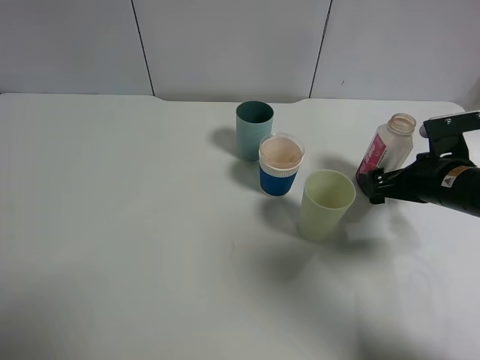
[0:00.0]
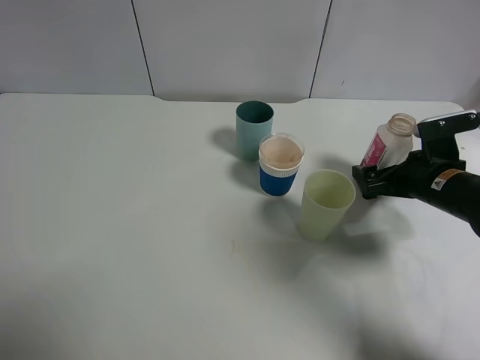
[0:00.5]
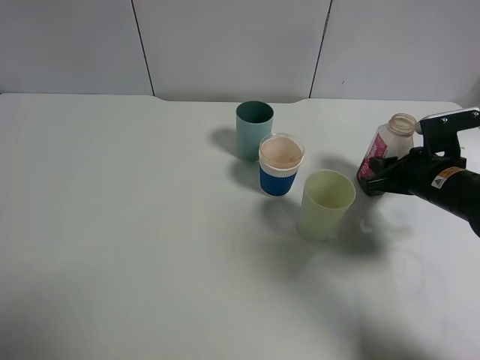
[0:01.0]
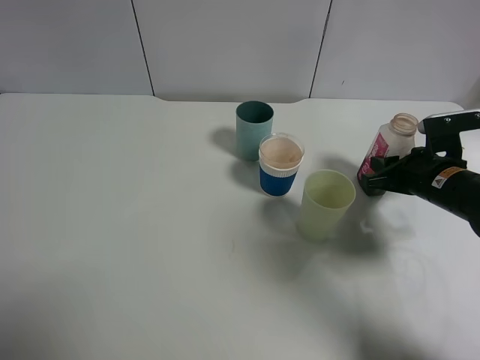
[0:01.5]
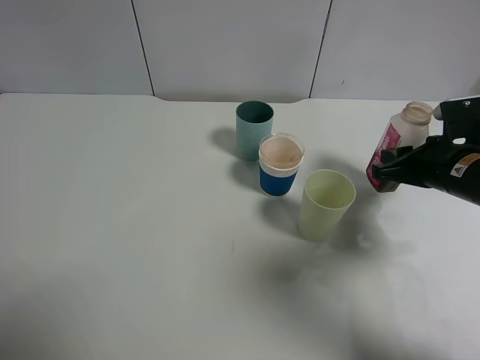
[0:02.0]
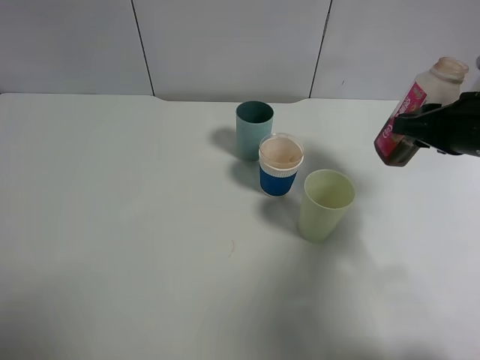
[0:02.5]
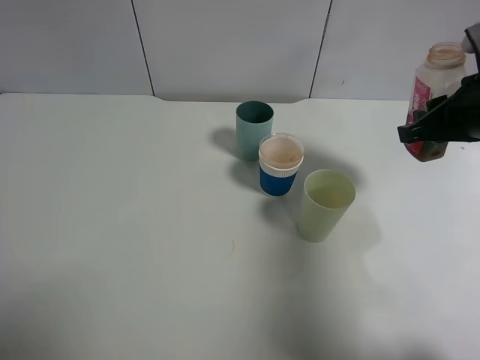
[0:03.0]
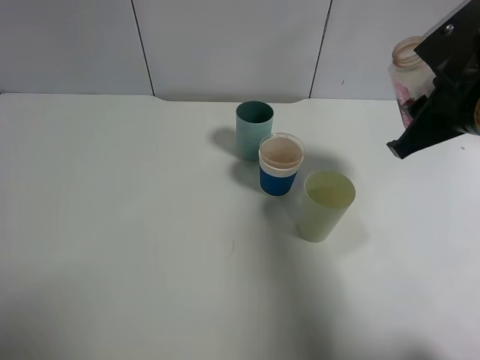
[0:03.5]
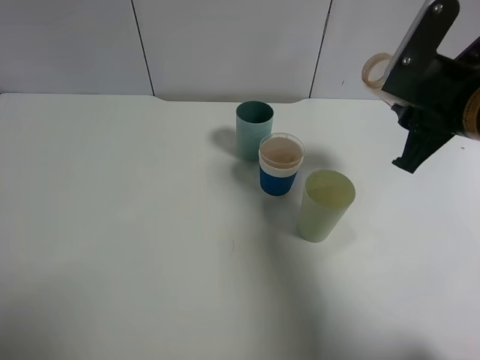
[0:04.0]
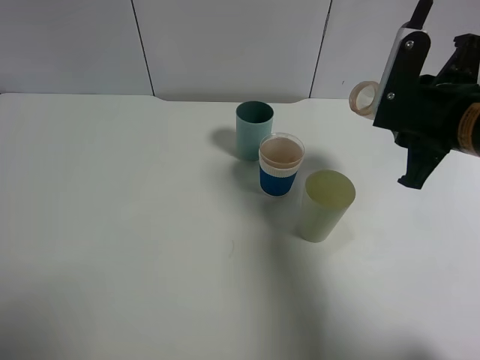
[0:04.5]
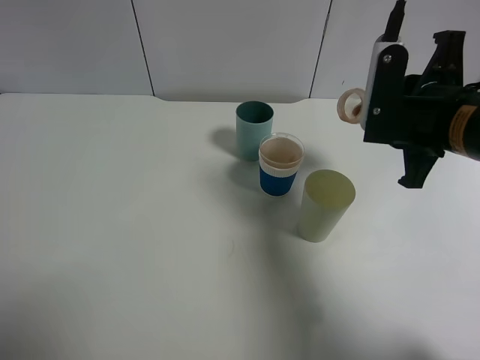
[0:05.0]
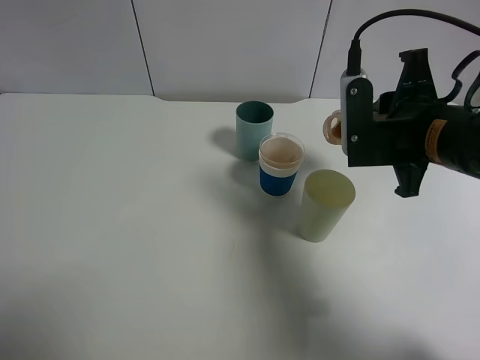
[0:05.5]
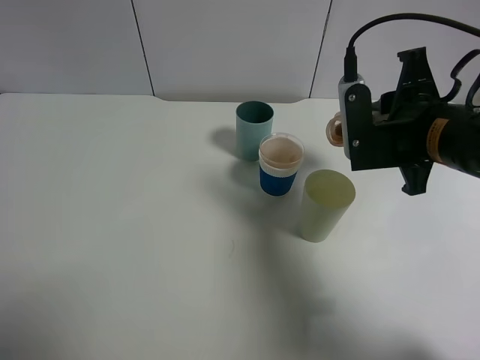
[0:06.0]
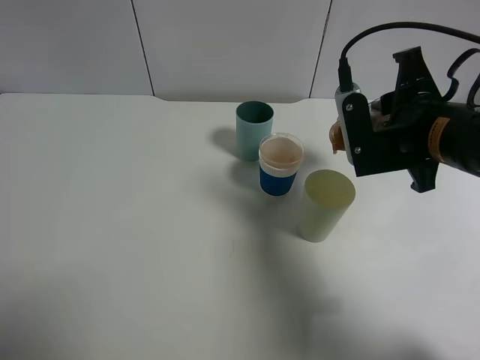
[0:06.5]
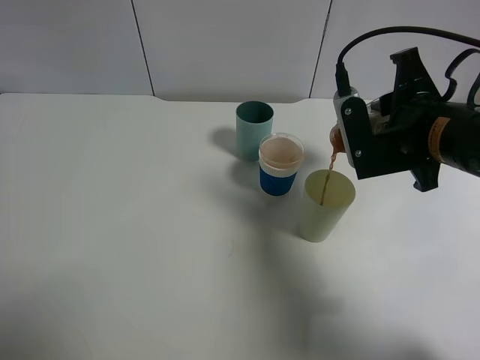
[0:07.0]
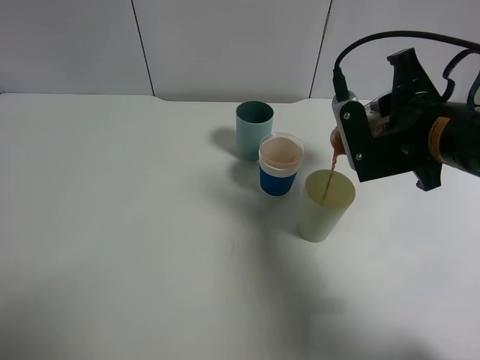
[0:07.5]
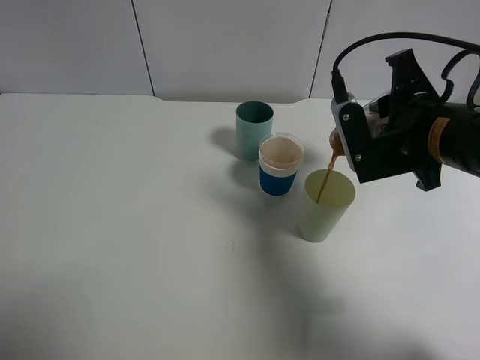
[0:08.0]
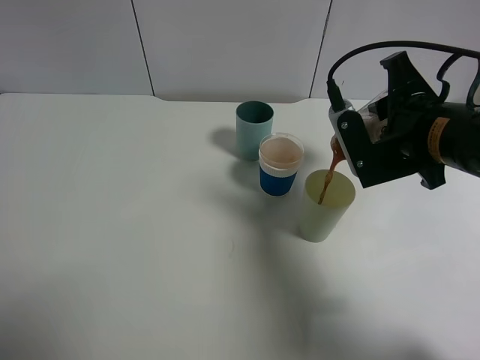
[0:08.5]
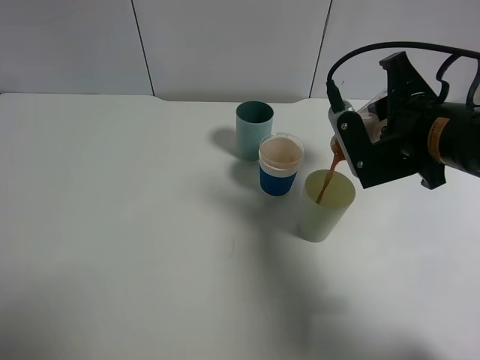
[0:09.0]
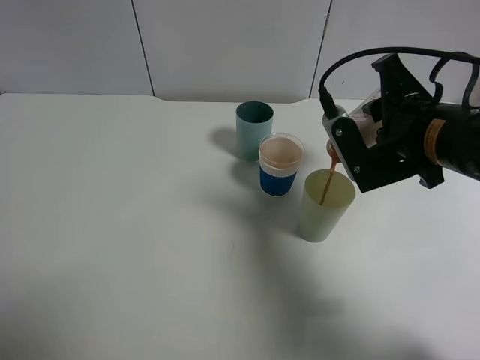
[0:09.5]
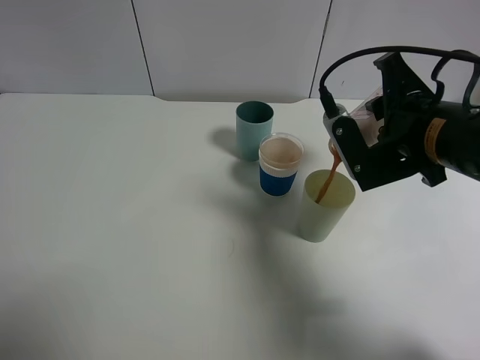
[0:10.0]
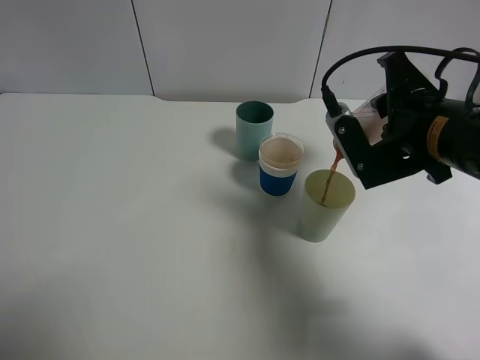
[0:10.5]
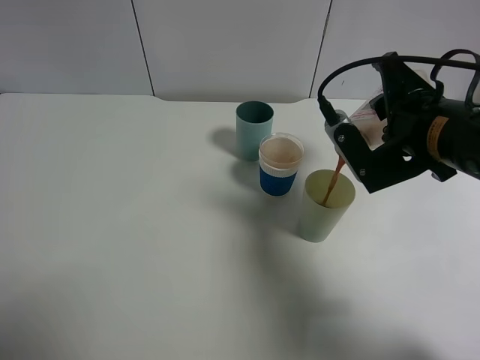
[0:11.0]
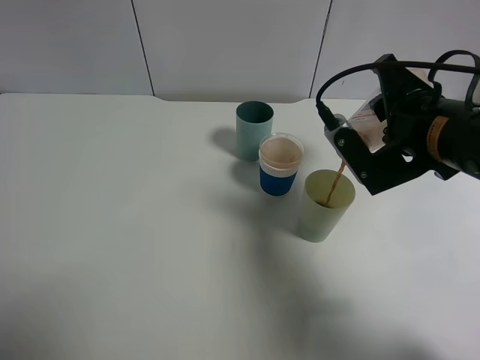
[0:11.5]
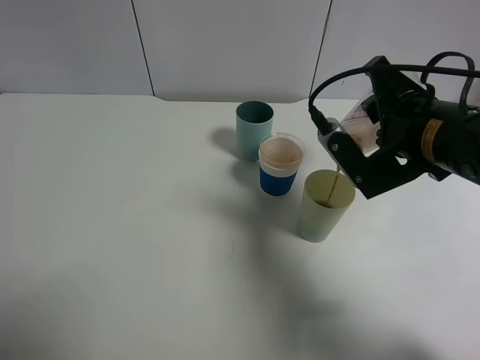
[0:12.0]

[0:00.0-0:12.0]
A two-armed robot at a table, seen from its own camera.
Task of the whole recording: use a gripper to hold the bottle of the drink and pour it into a random cup.
0:00.0 to 0:02.0: The right gripper closes its fingers.
0:02.0 to 0:04.0: The right gripper travels upward and to the left by roughly 10 cm.
0:06.0 to 0:10.0: The grippers move only a little.
0:10.0 to 0:12.0: The grippers stay close to where they were, moving slightly.

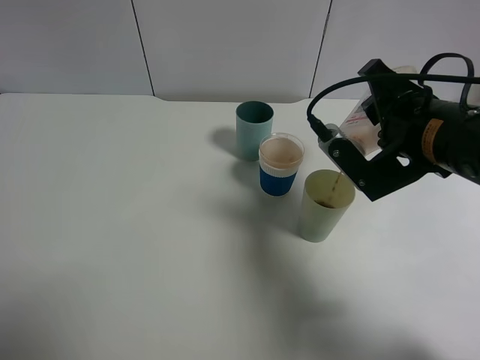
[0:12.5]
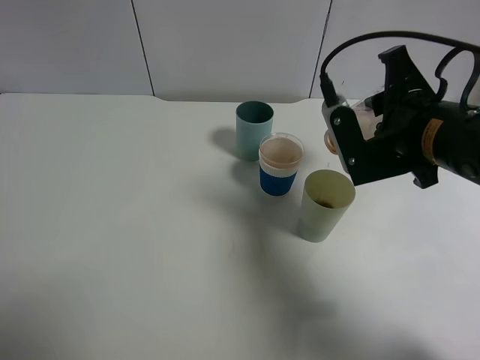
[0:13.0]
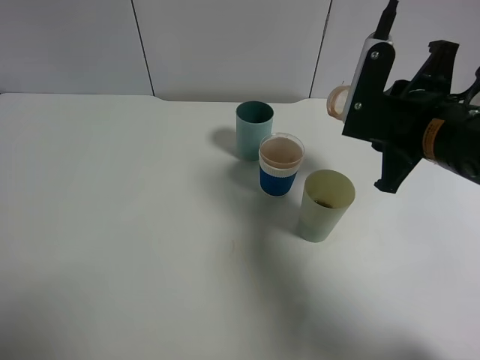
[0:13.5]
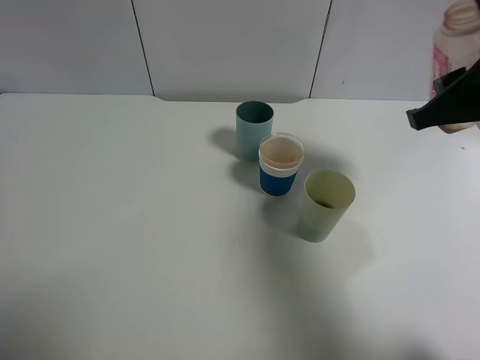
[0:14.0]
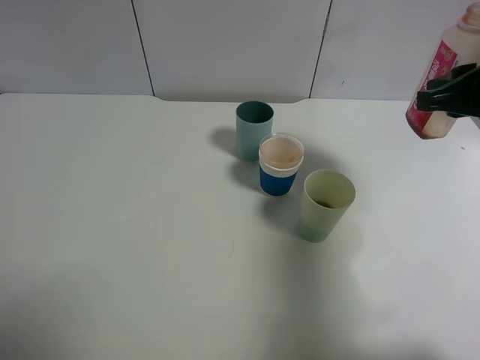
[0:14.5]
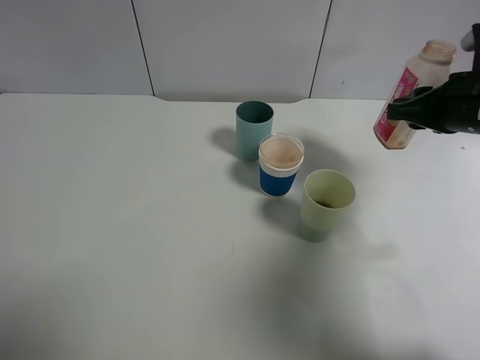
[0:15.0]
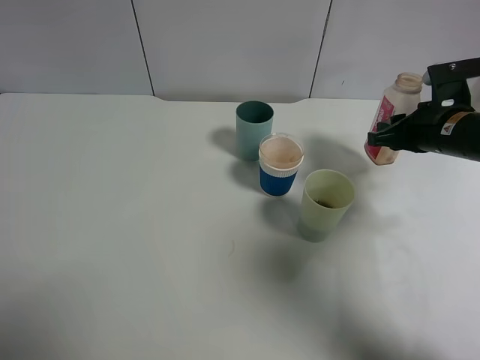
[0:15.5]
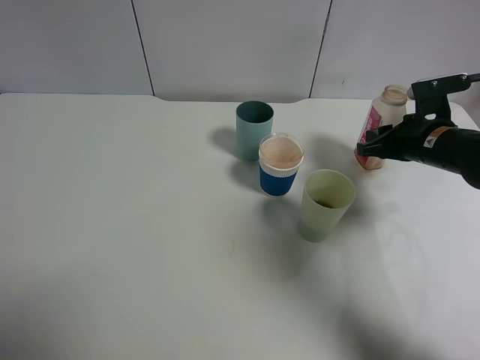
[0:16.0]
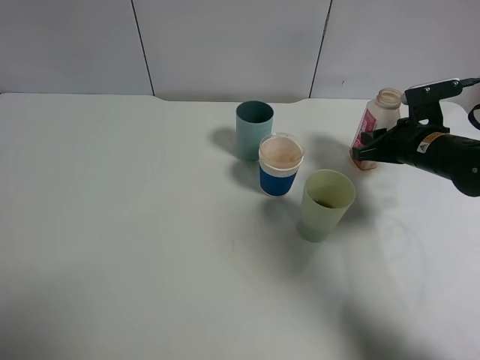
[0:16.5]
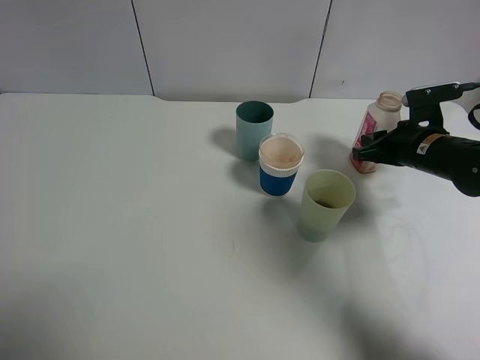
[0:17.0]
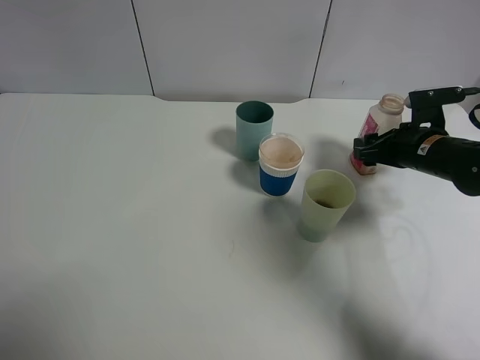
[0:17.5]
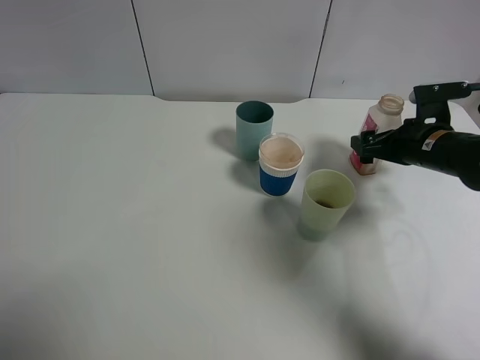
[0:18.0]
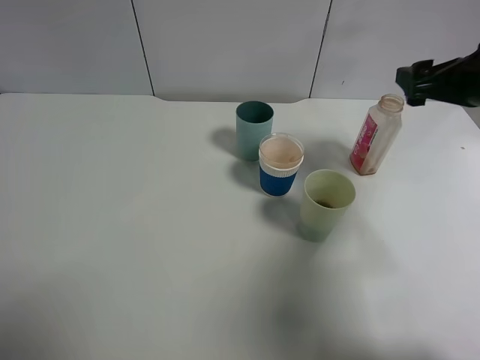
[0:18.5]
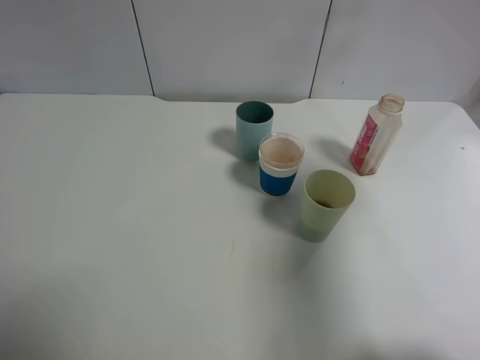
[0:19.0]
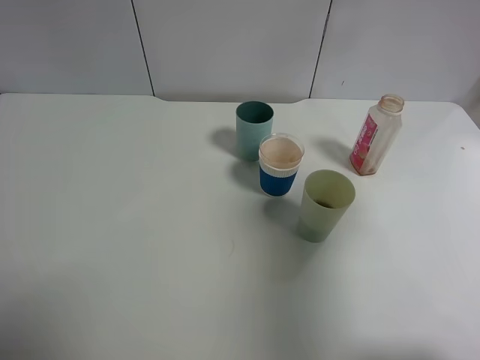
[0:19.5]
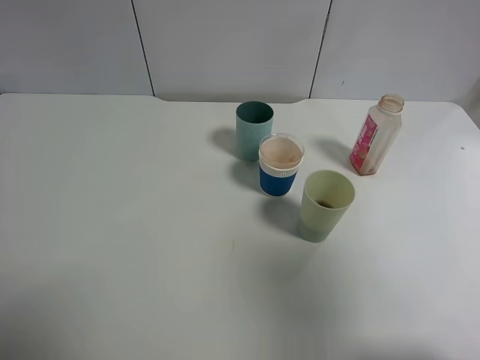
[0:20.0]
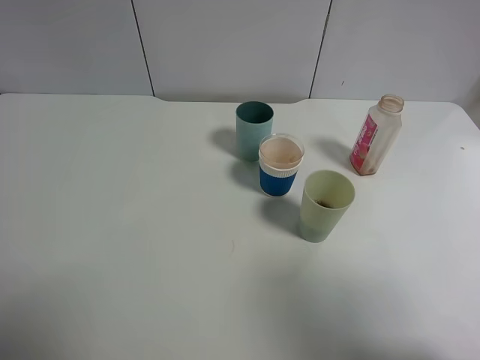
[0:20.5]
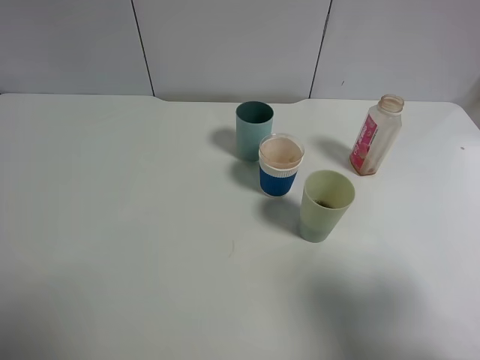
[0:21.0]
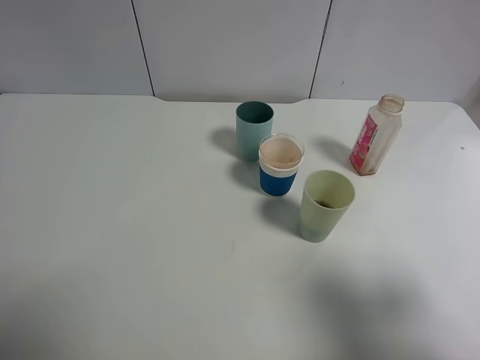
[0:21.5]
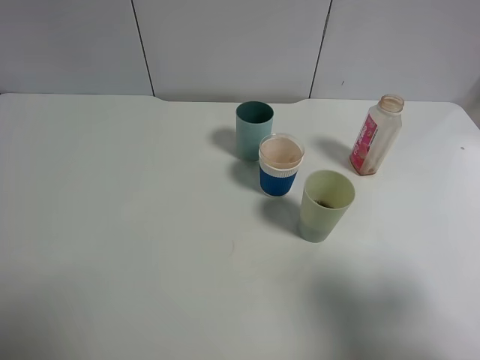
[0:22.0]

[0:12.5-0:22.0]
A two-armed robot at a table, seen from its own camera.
Task of the whole recording: use a gripper to hold the bottle of the drink and pour it into a random cup.
Step, 0:13.5 to 0:18.0: Place the cranberry juice bottle on the table with the right gripper.
0:12.5 to 0:14.5: The right gripper is displaced to the right by roughly 10 cm.
0:14.5 to 0:16.5: The right gripper moves downward and forward, some 15 cm.
0:16.5 to 0:18.0: The right gripper opens up.
0:18.0 to 0:20.0: The right gripper goes about 40 cm backward and upward.
0:20.0 to 0:22.0: The right gripper heads downward, covering roughly 10 cm.

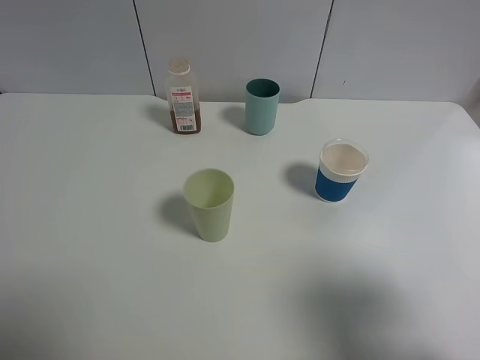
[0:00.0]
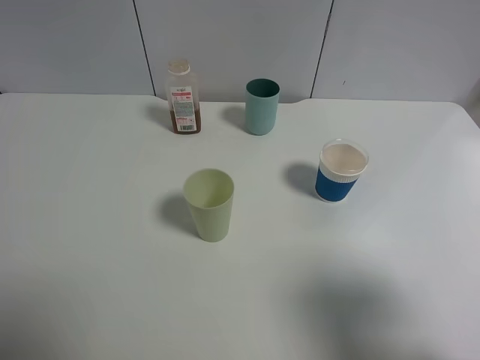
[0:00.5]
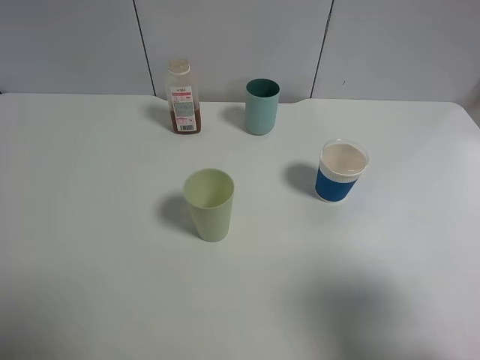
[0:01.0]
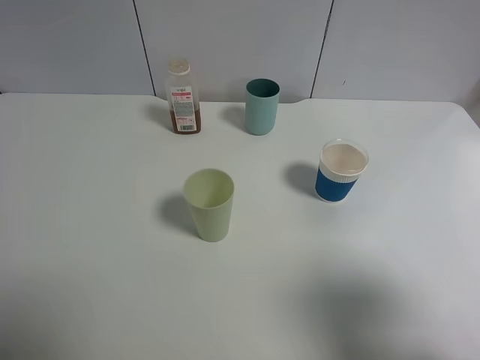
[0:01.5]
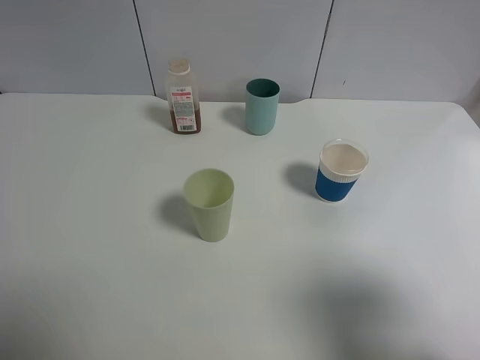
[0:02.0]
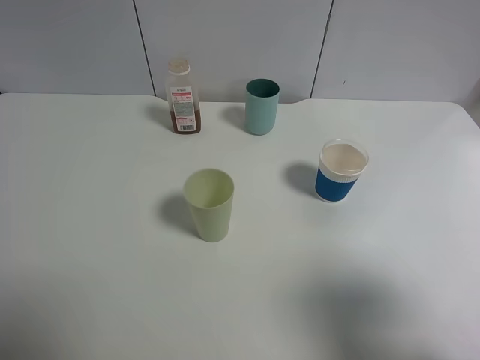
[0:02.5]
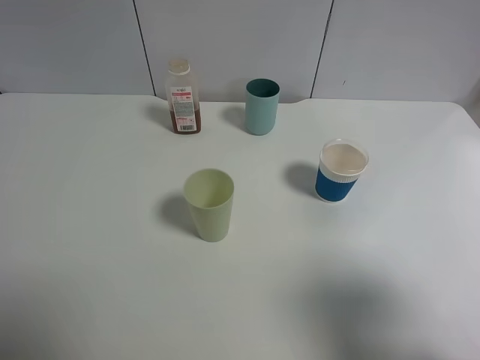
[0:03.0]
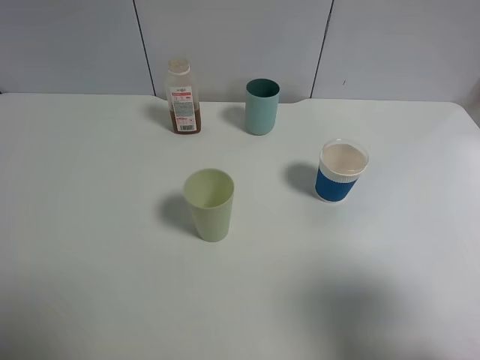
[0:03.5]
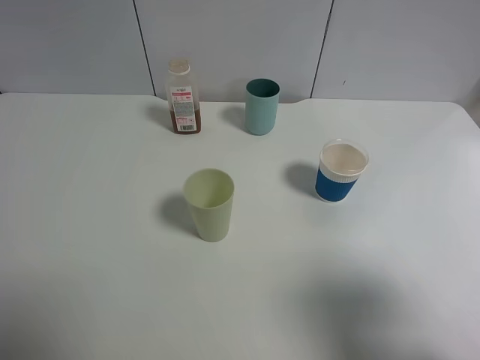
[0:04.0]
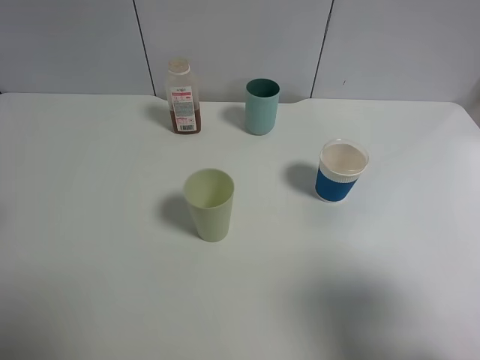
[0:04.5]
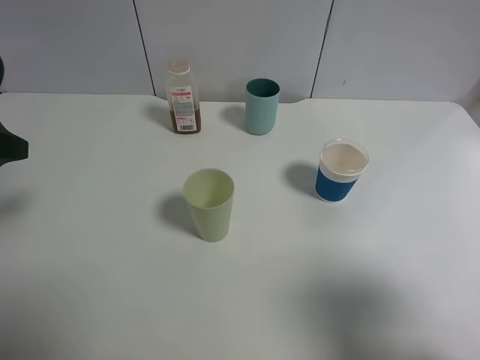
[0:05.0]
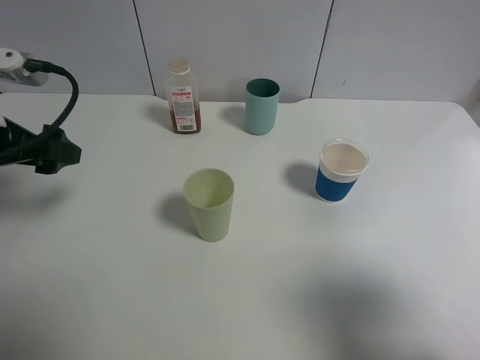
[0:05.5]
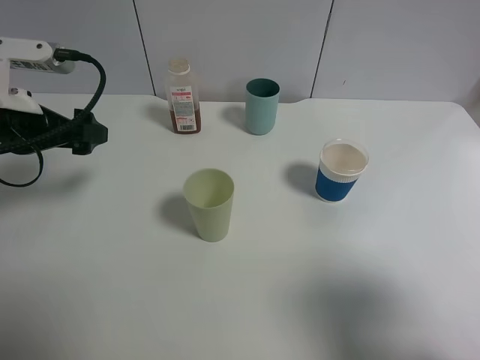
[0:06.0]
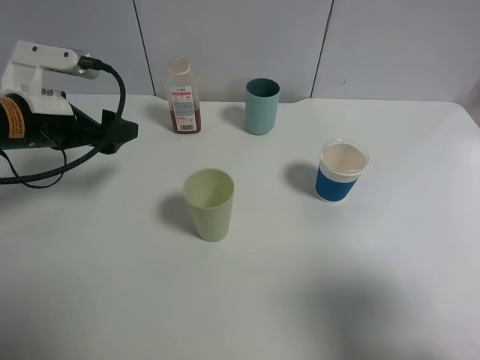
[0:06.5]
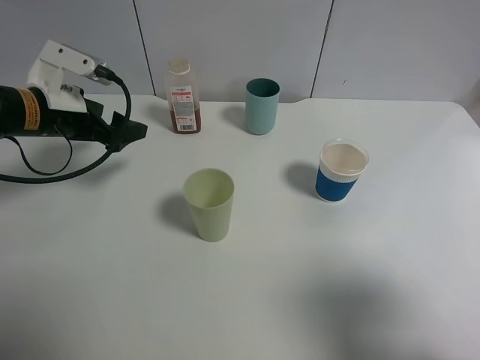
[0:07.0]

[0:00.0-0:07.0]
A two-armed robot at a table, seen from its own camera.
Task of the whole recording: use a gripper to hold the bottle of the drink and pour it into a random cup.
0:00.0 to 0:03.5: Neither gripper changes place.
0:03.5 to 0:05.0: The left gripper heads forward, covering approximately 20 cm.
0:05.0 to 0:07.0: The left gripper travels forward, downward and to the right by about 15 cm.
